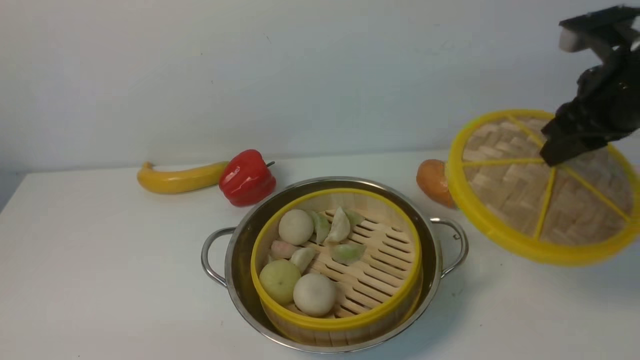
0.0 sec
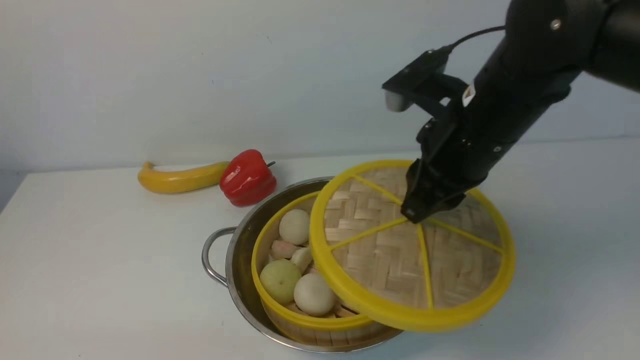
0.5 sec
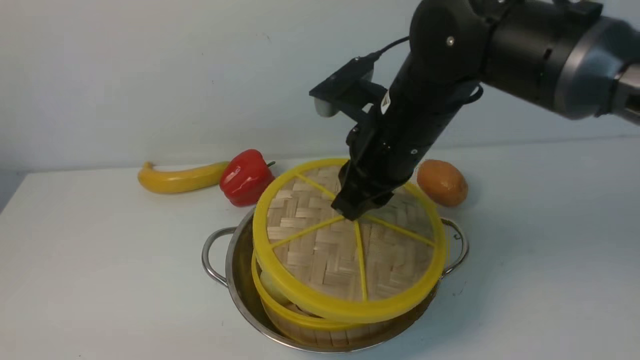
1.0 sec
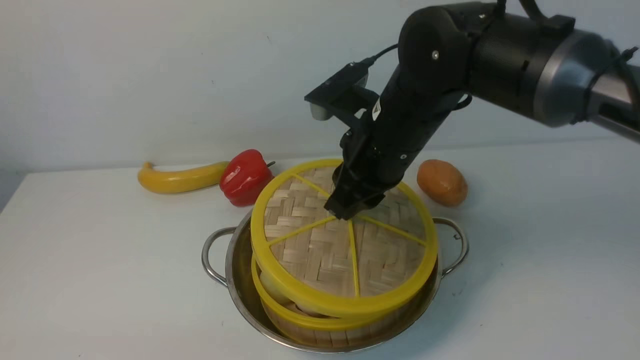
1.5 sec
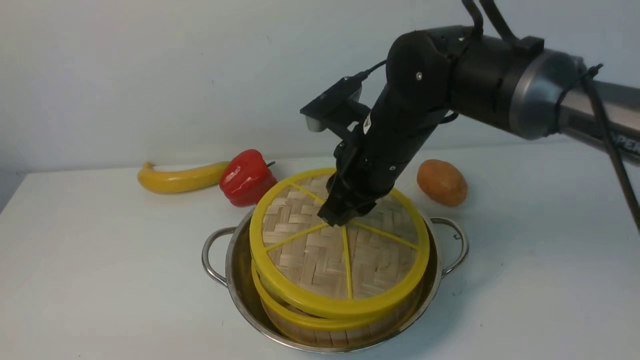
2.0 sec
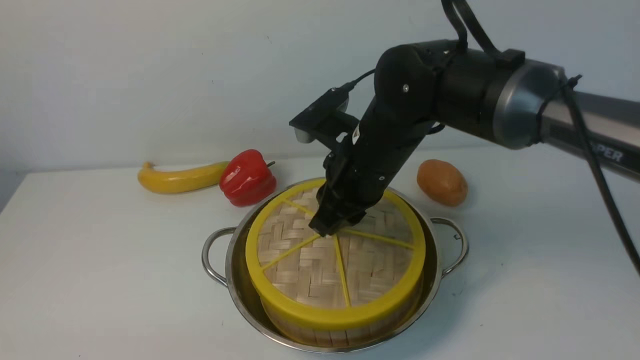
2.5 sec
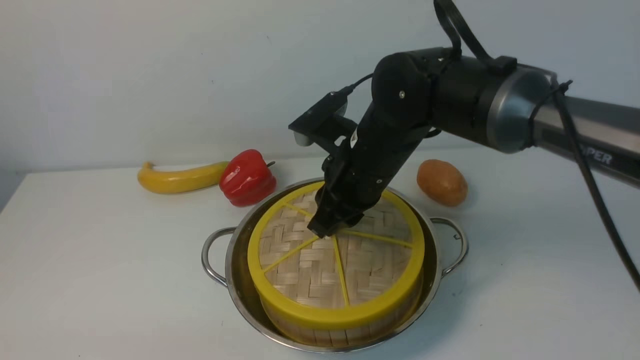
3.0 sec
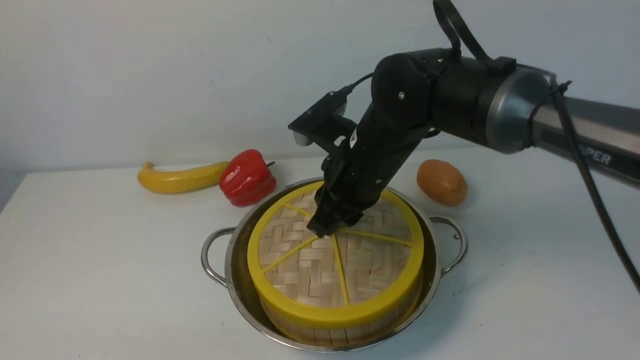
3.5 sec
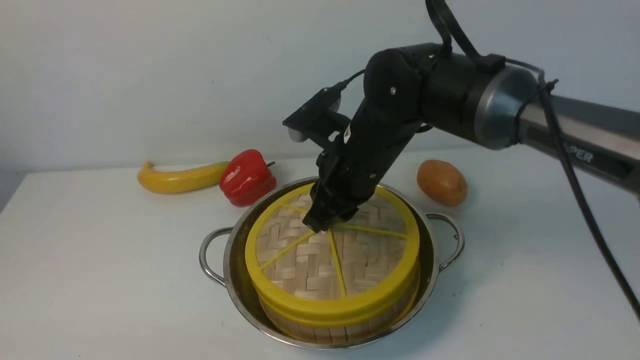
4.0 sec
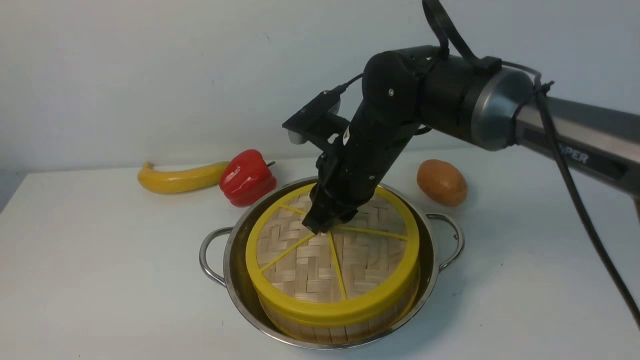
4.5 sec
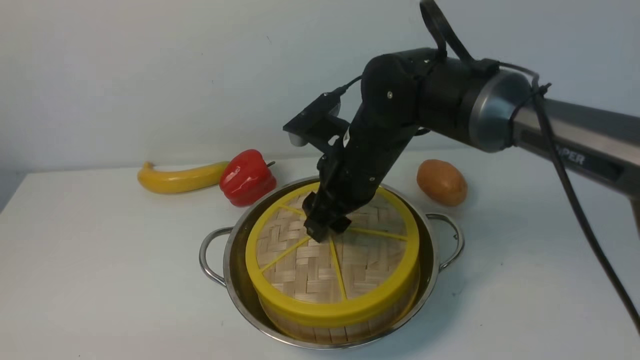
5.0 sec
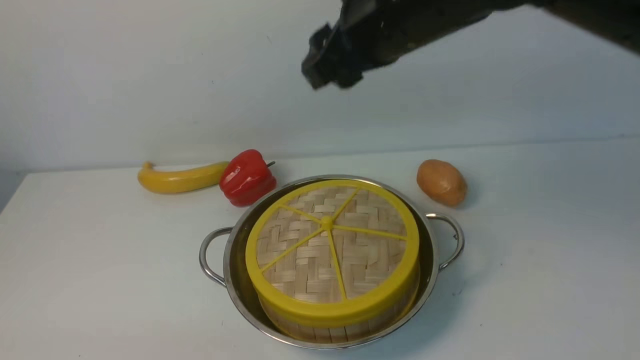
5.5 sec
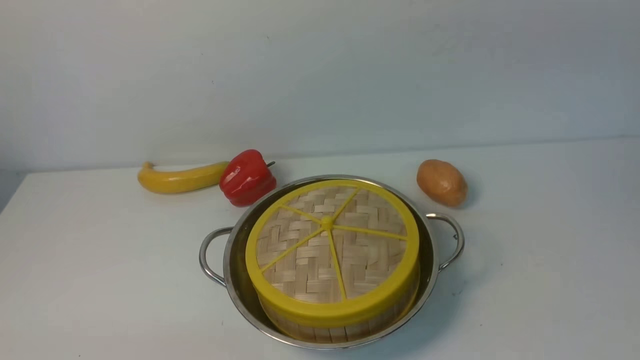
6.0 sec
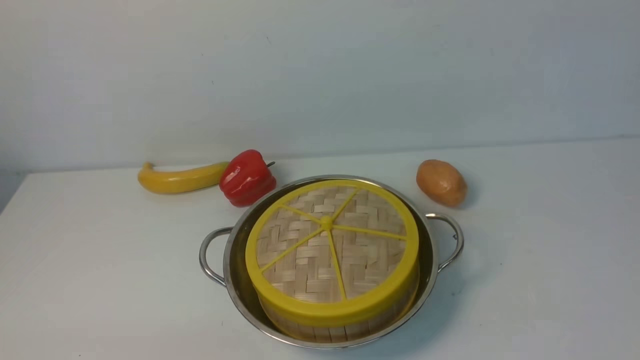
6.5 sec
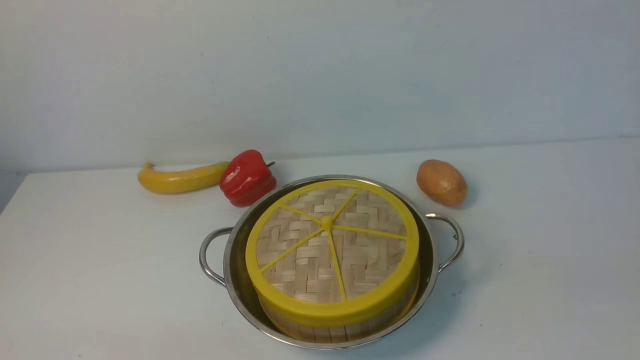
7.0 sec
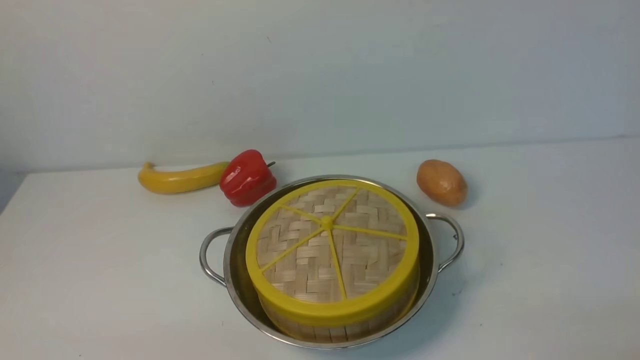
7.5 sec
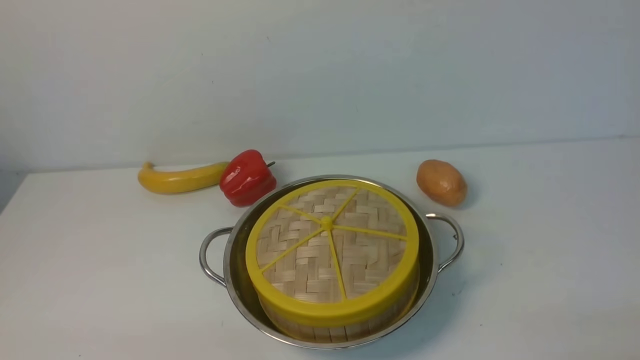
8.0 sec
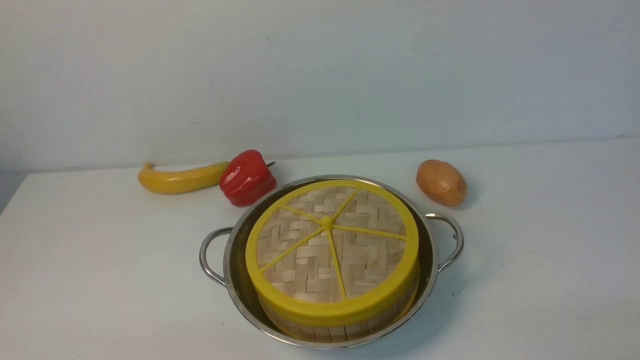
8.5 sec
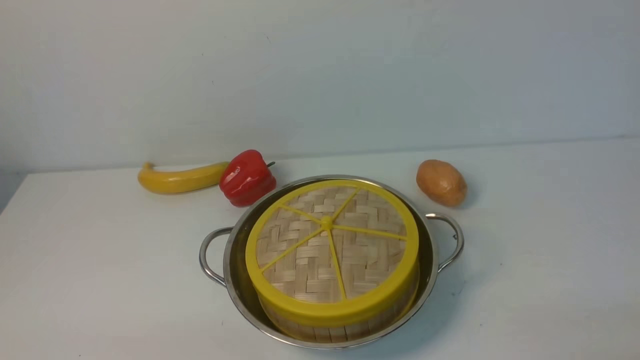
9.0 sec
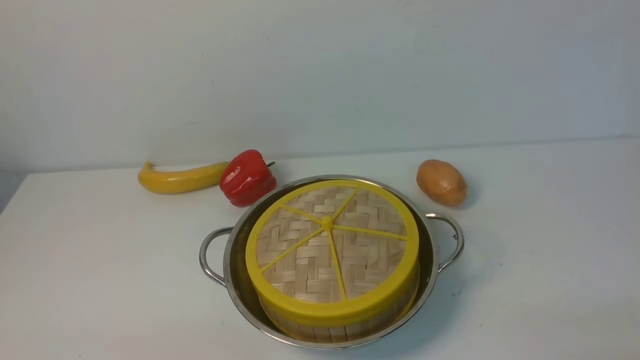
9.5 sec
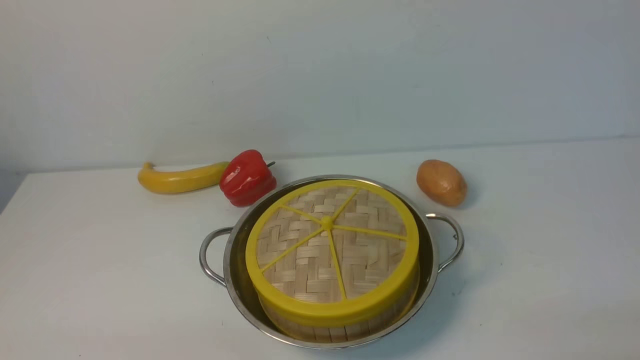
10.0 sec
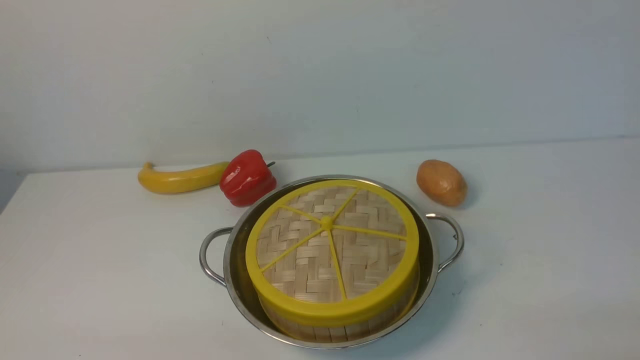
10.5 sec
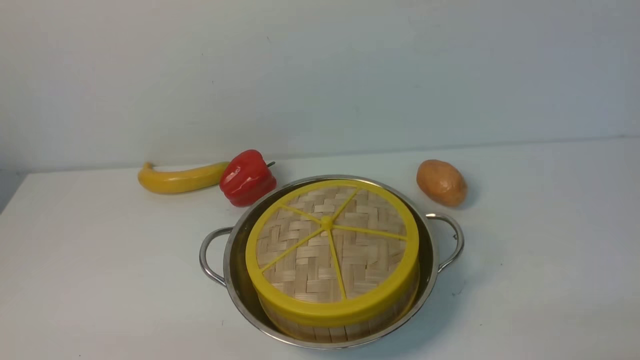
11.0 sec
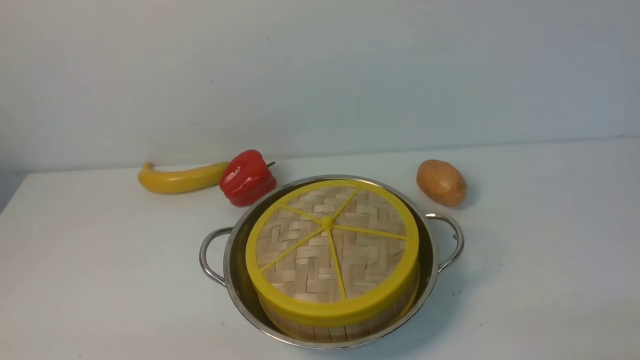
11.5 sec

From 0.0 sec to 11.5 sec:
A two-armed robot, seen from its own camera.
Task of the whole recording: place the steamer in the pot on the white table, and put the lid on the steamer.
Step, from 0.0 sec to 5.0 sec: use the right arm to place the steamer lid on the steamer.
From 0.0 sec to 2.0 sec: The right gripper moves to the left, roughly 20 cm.
From 2.0 sec to 4.0 sec: The grippers move only a little.
From 4.0 sec to 6.0 sec: The right gripper goes roughly 25 cm upward and to the right, and closes its fingers.
From 9.5 sec to 11.5 sec: Both grippers stay about where they are.

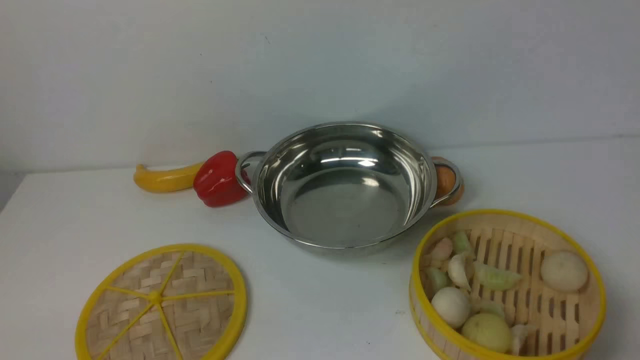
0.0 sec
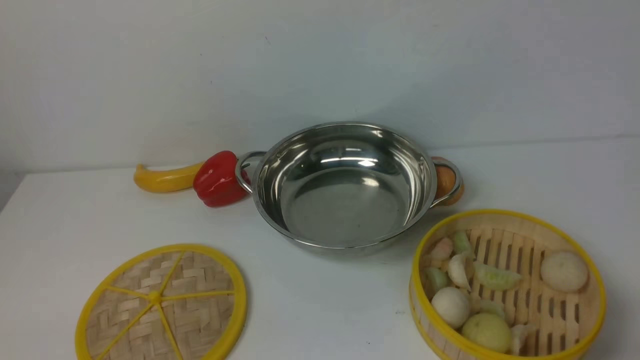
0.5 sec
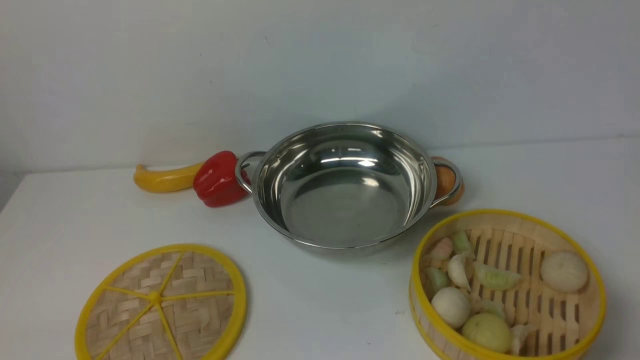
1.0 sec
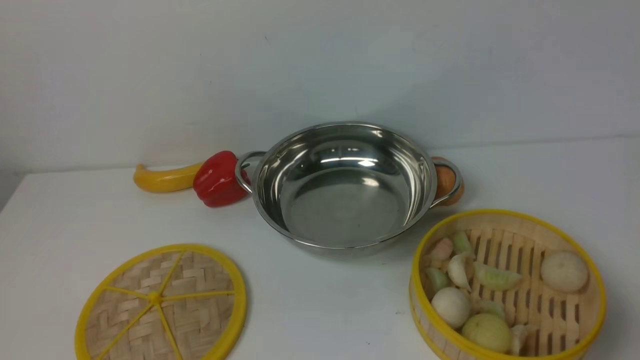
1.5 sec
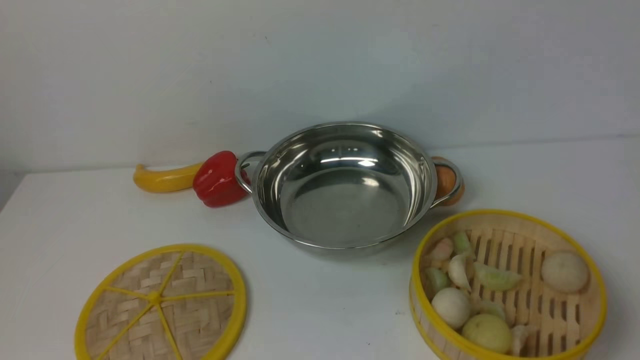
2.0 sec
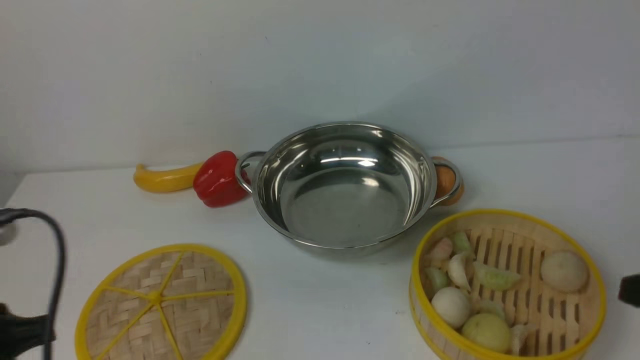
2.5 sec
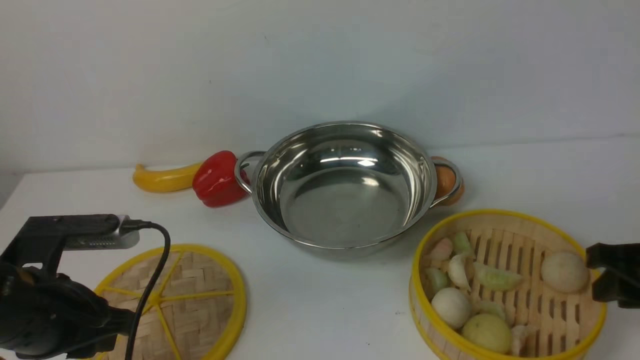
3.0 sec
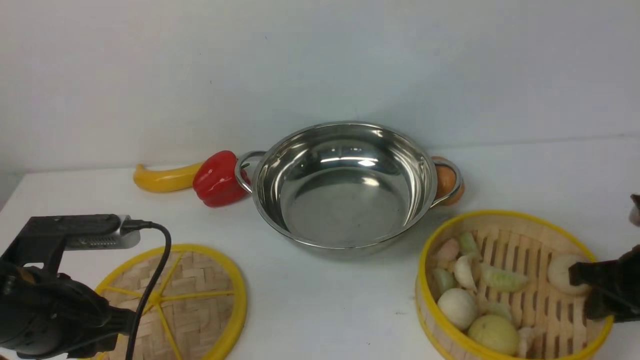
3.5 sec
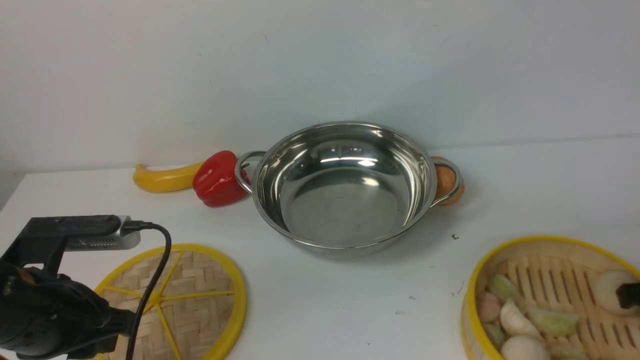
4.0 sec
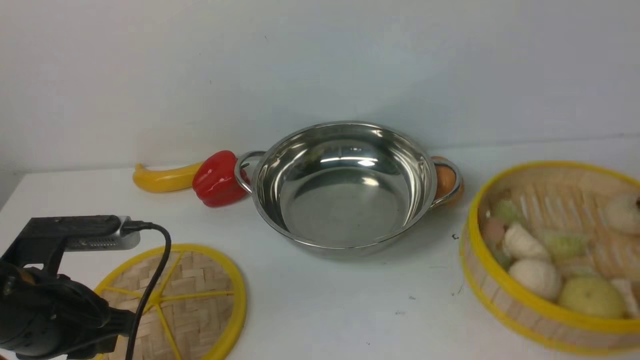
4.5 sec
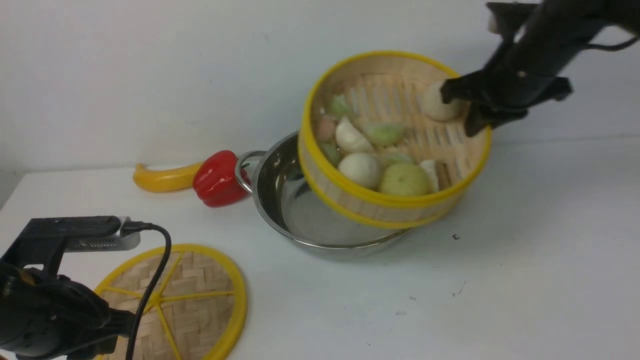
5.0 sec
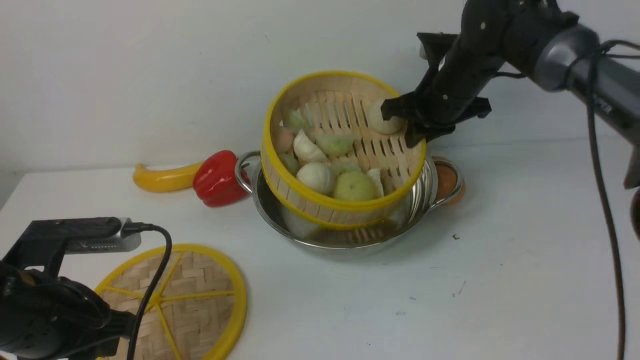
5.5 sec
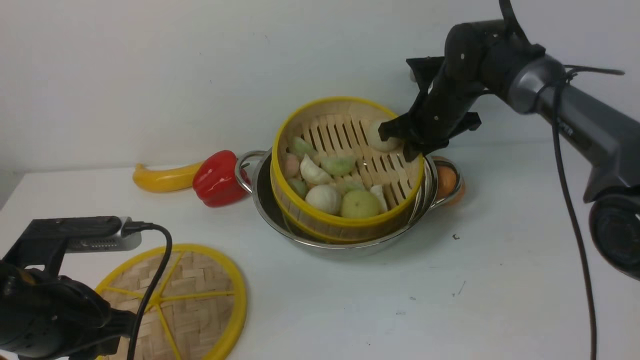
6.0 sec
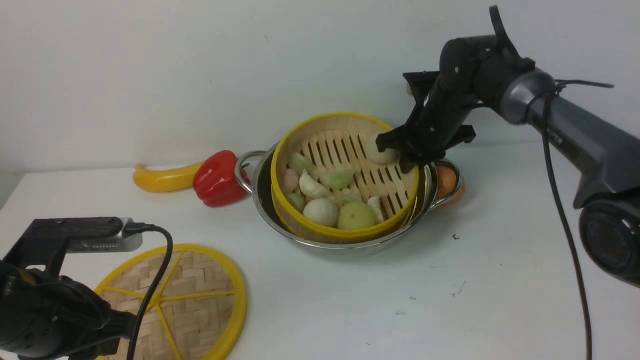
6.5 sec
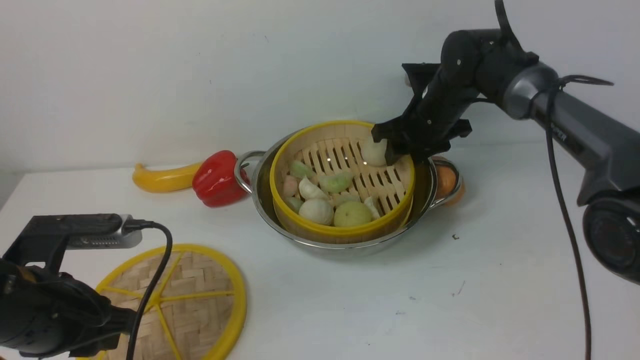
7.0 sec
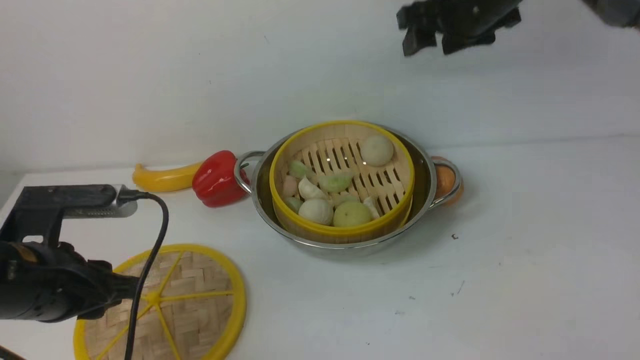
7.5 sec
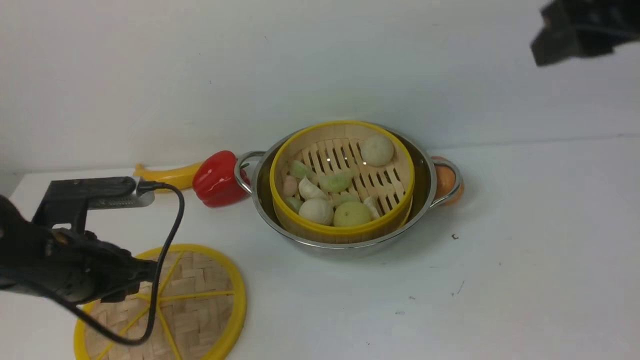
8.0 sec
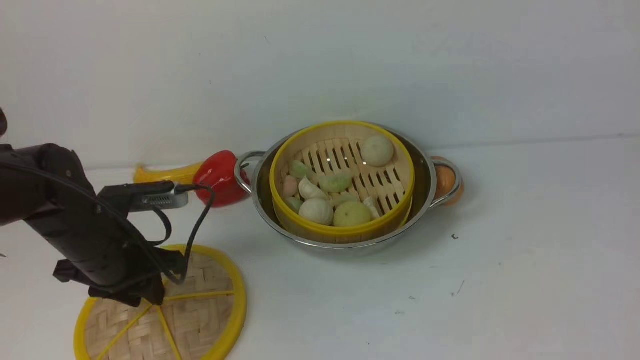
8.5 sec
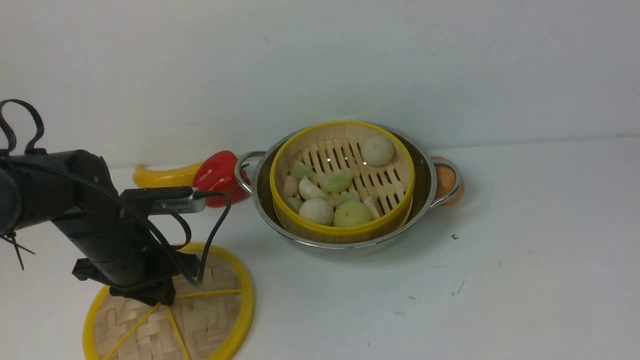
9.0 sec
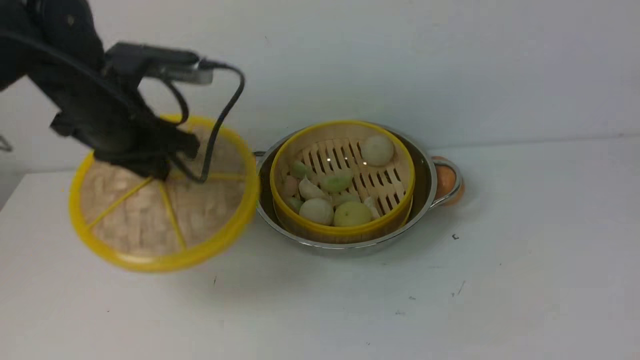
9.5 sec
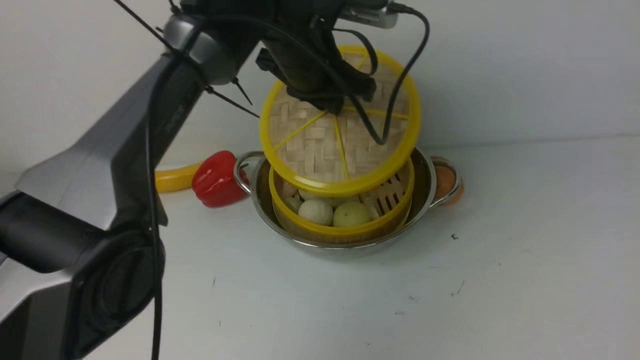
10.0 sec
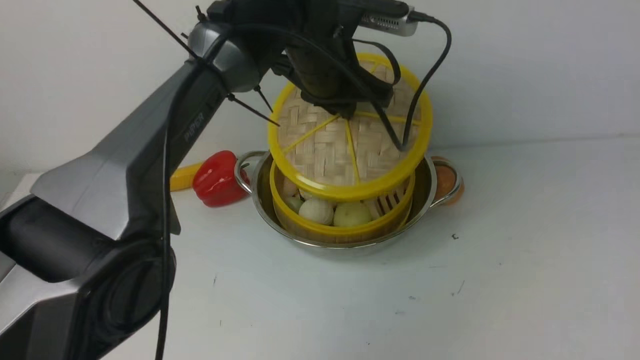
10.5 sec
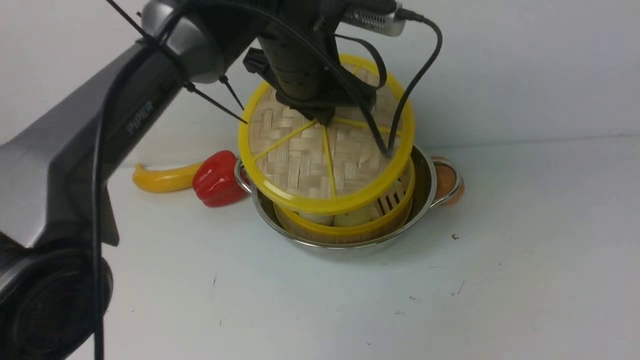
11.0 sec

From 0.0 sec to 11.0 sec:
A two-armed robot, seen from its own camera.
Task of the whole recording: place the steamer in the pot on the white table, and put the lid on the steamer.
Step, from 0.0 sec to 4.5 sec: use the right arm to lift the steamer closest to it.
Step, from 5.0 sec to 7.0 sec: use the right arm to put the steamer into the iron steamer pot in the middle.
Step, from 7.5 sec to 9.5 sec: use the left arm to lift the lid of the steamer.
From 2.0 sec to 3.5 sec: The left gripper heads forward, covering some 15 cm, while the right gripper travels forward and downward by about 20 cm.
From 3.5 sec to 5.5 sec: The right gripper travels forward and to the left by about 30 cm.
From 5.5 sec to 7.5 sec: The right gripper moves upward, some 15 cm, and opens.
From 7.5 sec to 9.0 sec: The left gripper goes roughly 10 cm forward and downward, while the right gripper travels backward by some 30 cm.
From 9.0 sec to 11.0 sec: The left gripper shifts some 30 cm to the right, upward and forward.
